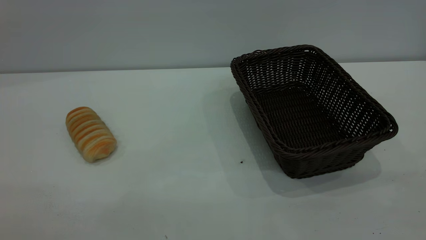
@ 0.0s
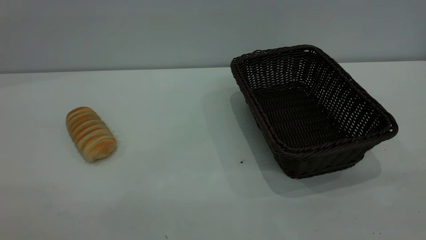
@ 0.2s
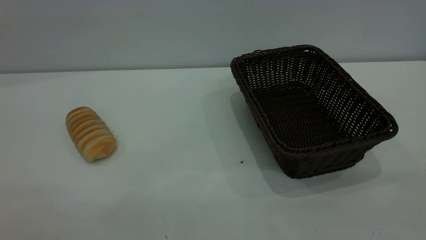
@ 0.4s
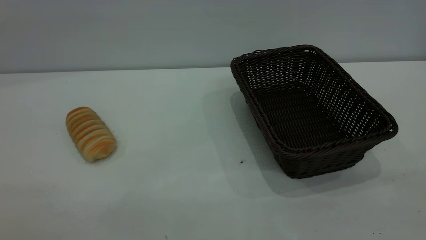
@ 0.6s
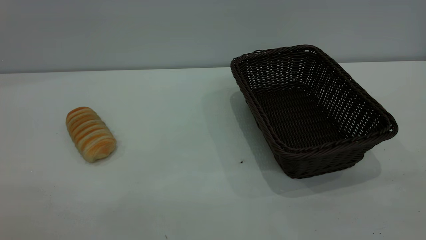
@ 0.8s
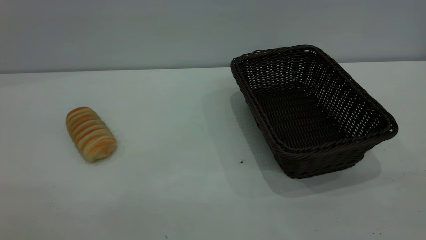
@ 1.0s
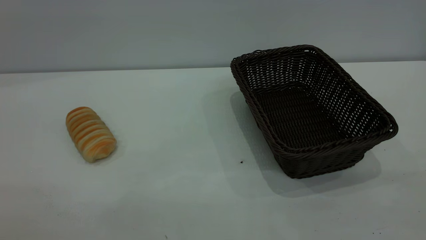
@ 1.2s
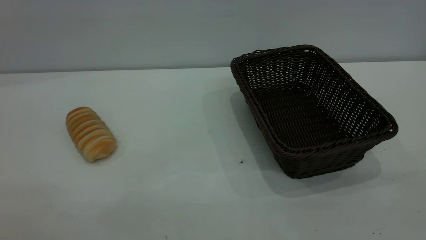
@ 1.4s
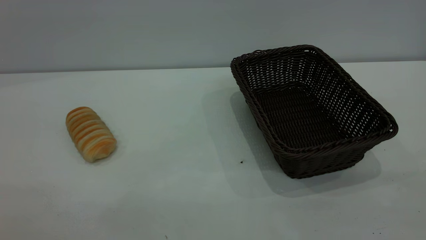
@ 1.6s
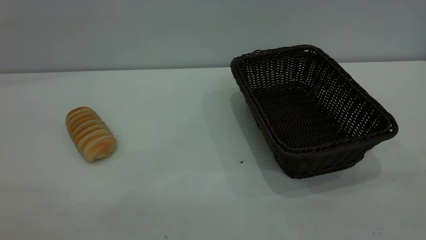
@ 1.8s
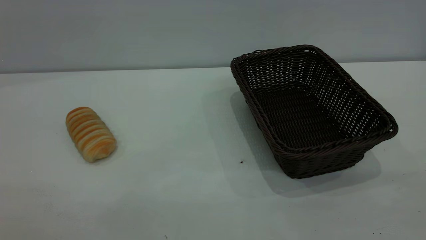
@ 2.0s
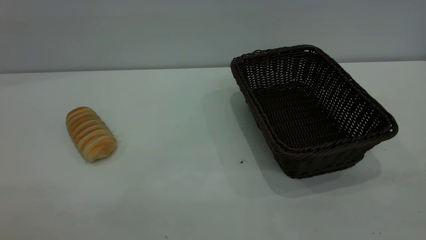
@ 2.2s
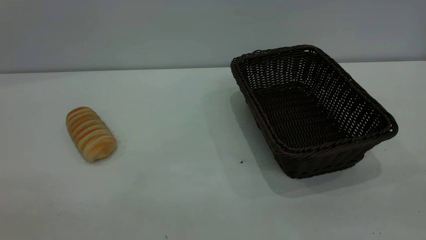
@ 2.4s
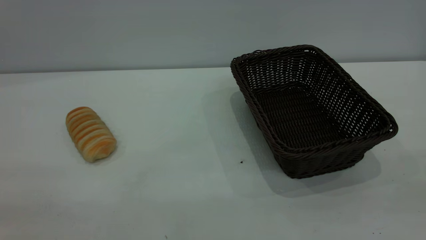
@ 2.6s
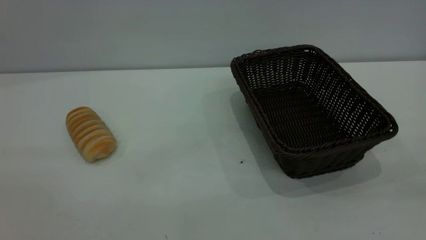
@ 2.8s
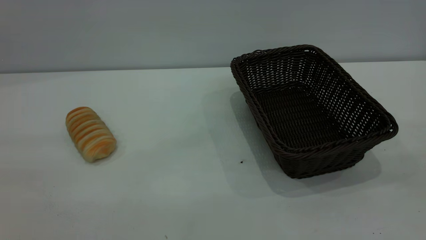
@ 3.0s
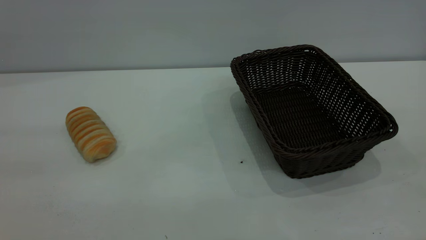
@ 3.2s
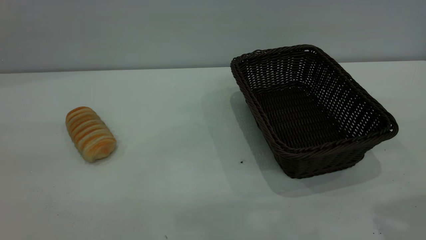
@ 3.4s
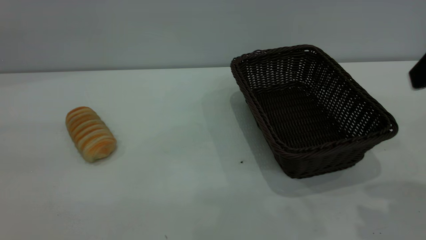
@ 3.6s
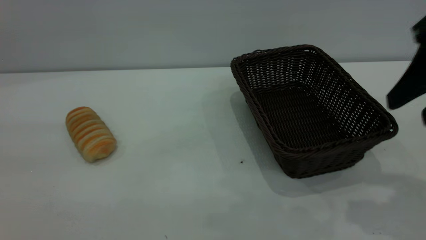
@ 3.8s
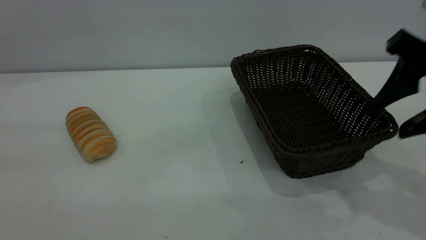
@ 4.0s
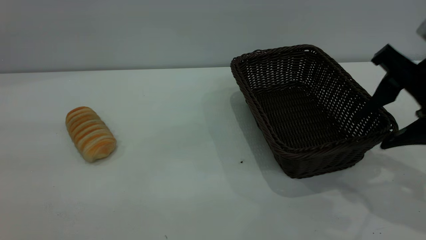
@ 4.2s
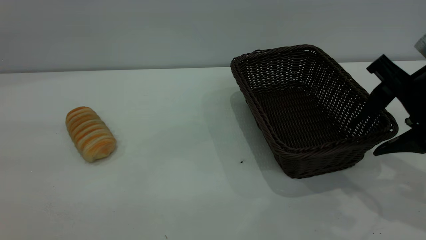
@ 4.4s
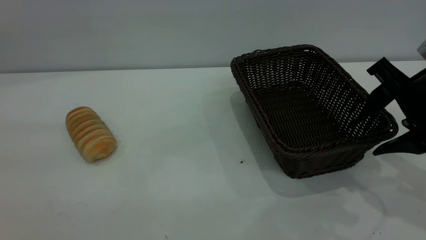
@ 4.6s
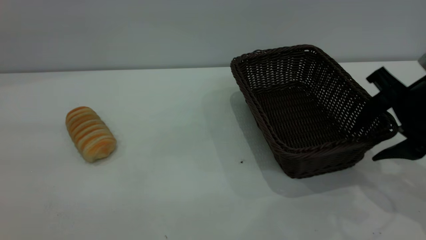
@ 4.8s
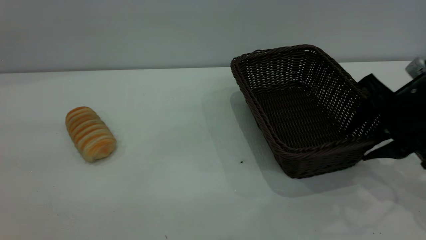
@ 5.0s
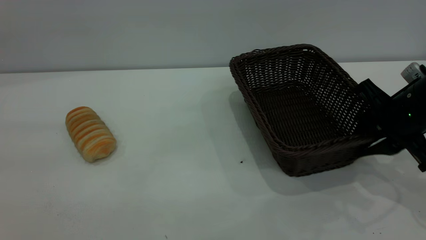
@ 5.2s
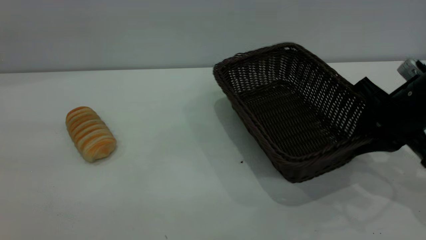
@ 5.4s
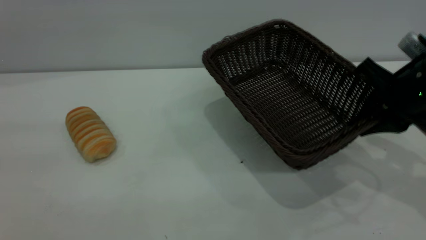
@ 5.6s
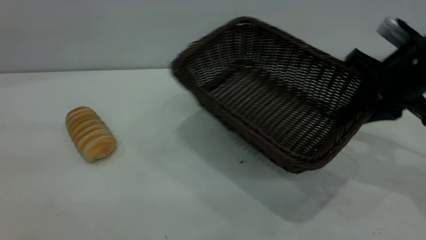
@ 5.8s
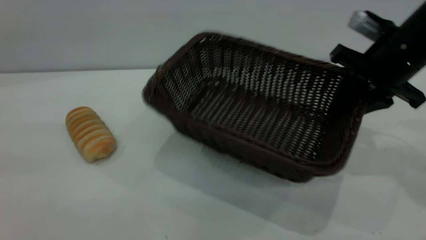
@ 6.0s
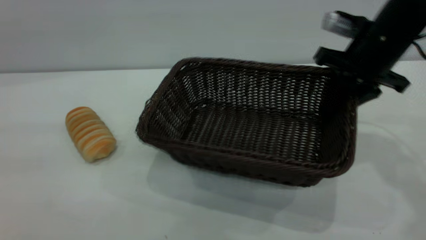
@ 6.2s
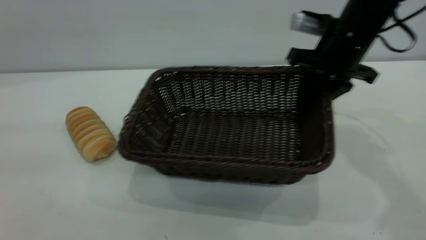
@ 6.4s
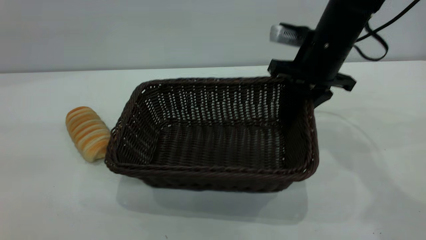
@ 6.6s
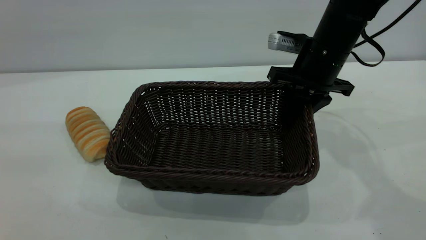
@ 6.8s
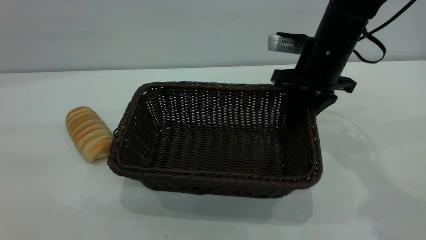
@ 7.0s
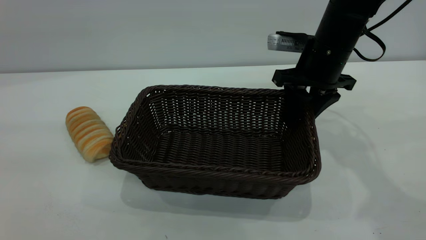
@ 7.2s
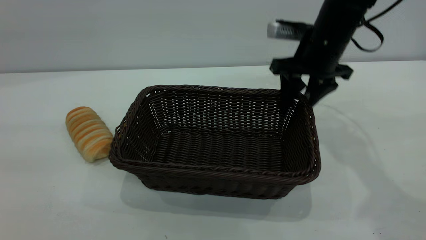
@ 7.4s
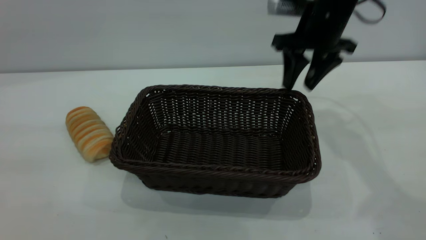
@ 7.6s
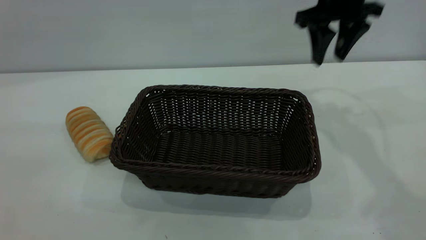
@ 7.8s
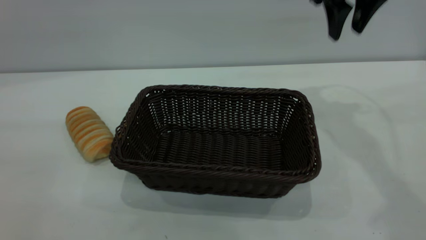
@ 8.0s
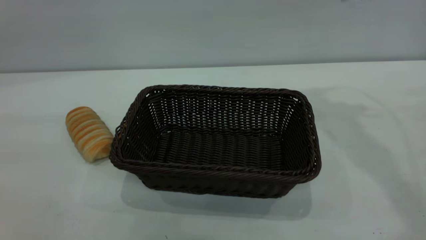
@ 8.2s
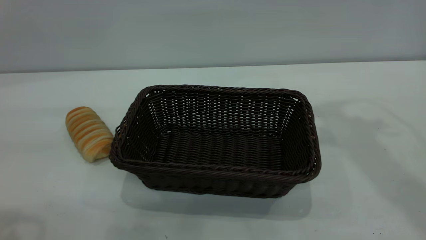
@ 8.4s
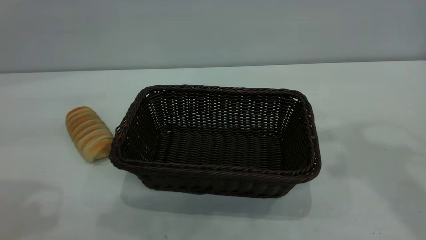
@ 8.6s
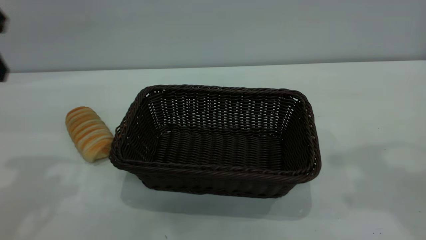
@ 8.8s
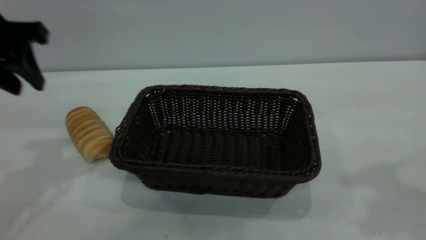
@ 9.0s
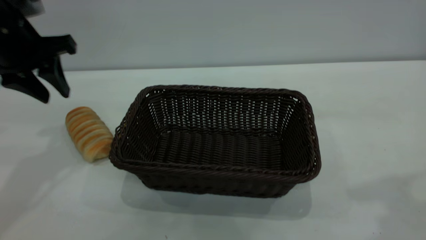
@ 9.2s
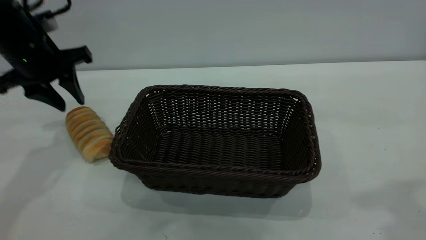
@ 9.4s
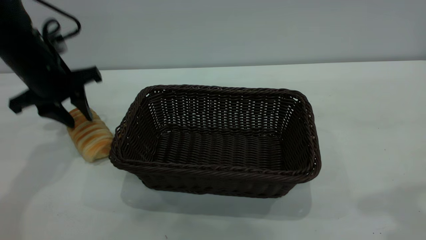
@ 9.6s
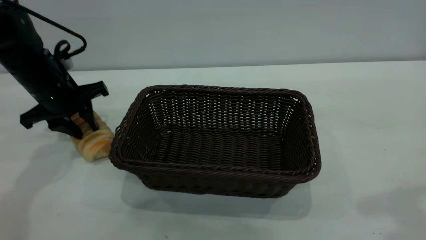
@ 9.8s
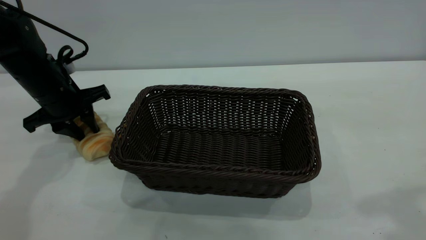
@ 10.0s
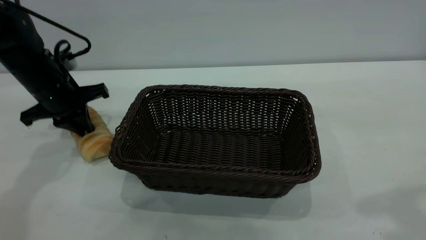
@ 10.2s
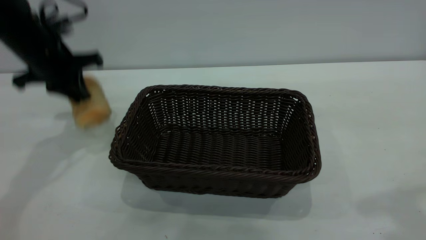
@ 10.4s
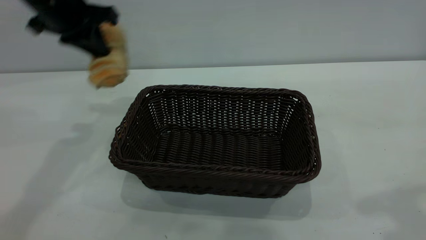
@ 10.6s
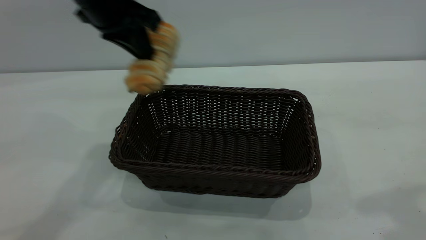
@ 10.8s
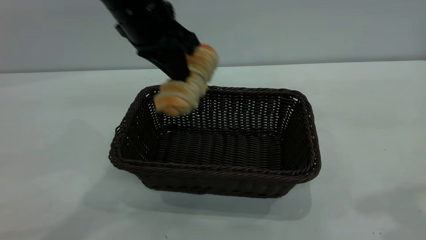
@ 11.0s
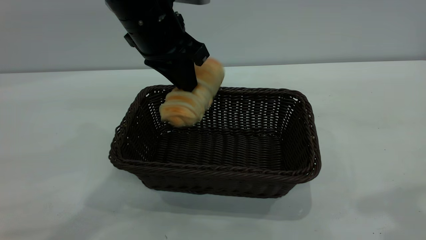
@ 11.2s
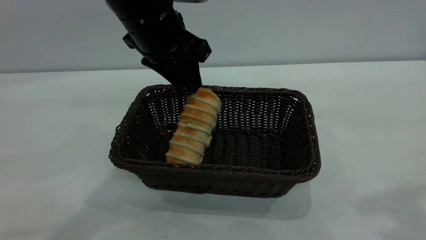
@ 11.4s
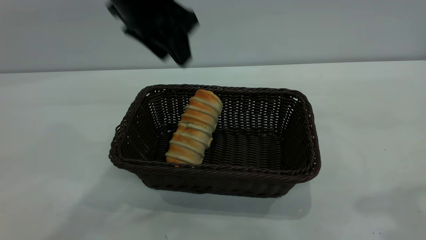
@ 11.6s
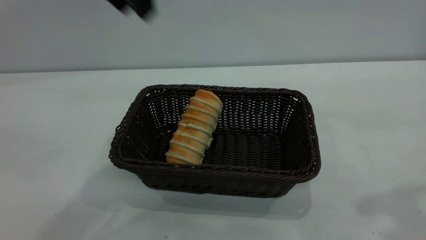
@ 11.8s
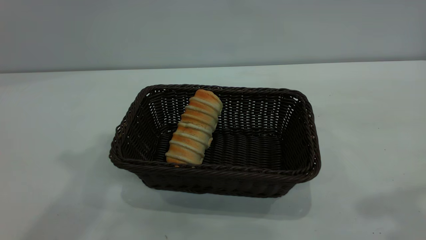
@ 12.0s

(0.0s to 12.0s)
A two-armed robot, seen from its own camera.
Task of the whole recording: One hand grasps the black basket and places it in the middle of the table, while the other hand picks up the long bread and puts it into the black basket.
Step, 0.0s - 7.6s: Move the basket to the center of view.
Step, 10.6s - 11.4s: place the bread into the basket.
0.0s - 1.6s: The two grippers keep their place.
3.0s - 4.4s: The right gripper shifts roughly 25 cm forward and downward.
4.4s - 6.0s: The right gripper heads forward, covering roughly 10 cm, and closes.
6.0s - 7.6s: The right gripper travels forward and to the left by about 10 cm, and opens up.
7.6s - 9.0s: The right gripper moves backward and upward, about 30 cm, while the left gripper heads forward and downward, covering some 30 cm.
9.0s - 10.4s: The left gripper shifts roughly 10 cm forward, travels downward and back again, roughly 15 cm each way, and closes up.
10.4s - 12.0s: The left gripper travels upward and backward by about 25 cm, and opens up.
